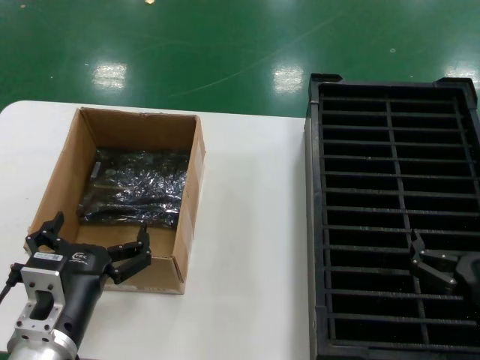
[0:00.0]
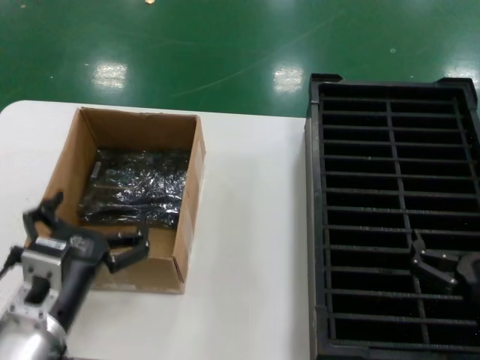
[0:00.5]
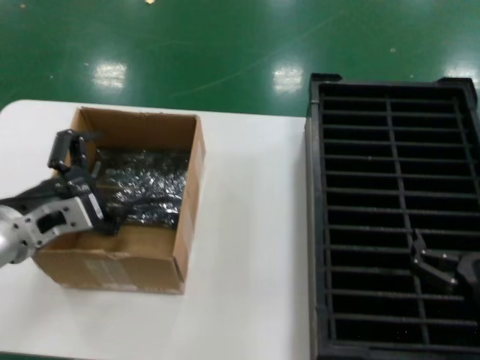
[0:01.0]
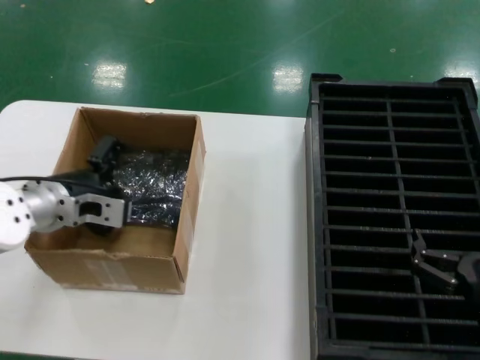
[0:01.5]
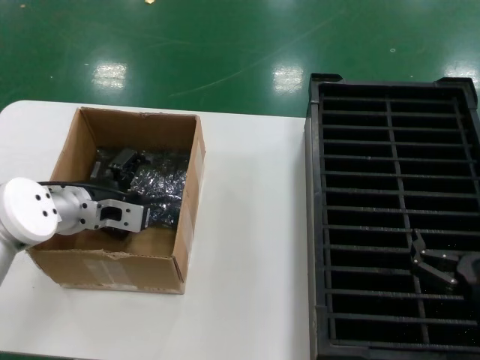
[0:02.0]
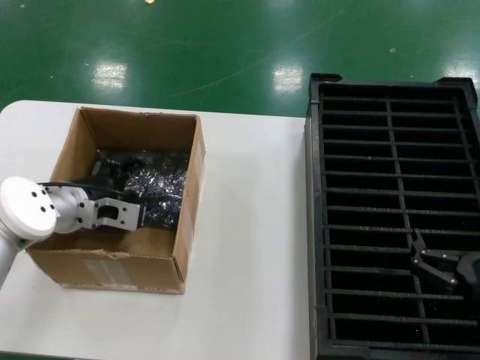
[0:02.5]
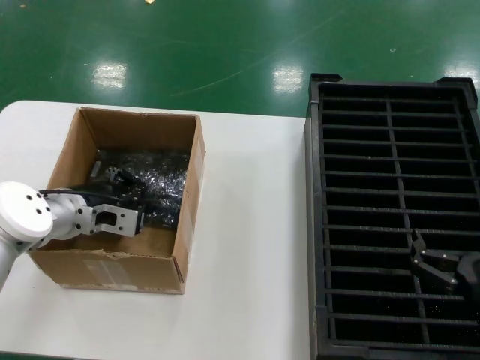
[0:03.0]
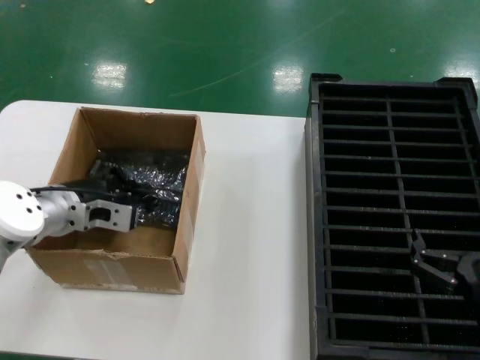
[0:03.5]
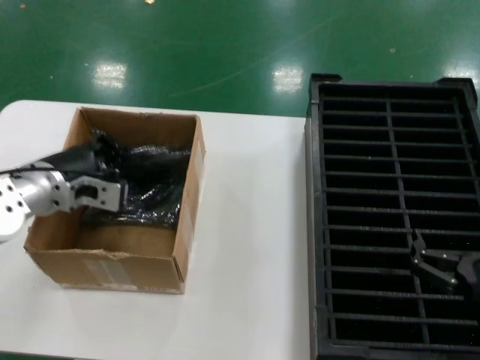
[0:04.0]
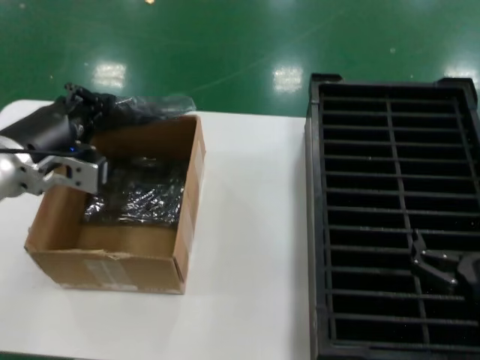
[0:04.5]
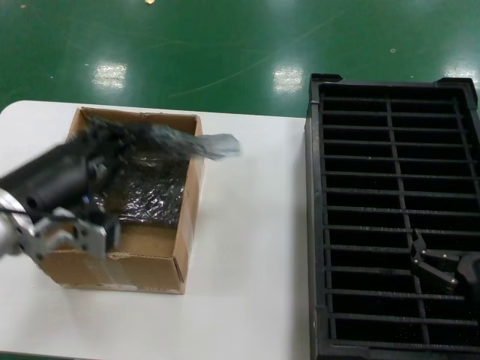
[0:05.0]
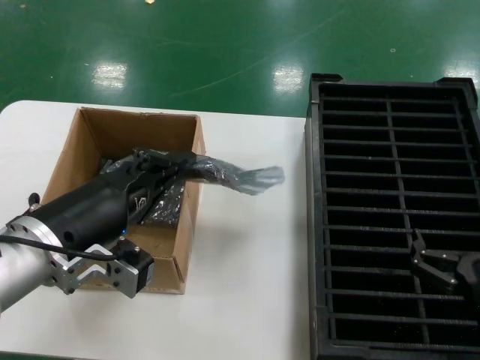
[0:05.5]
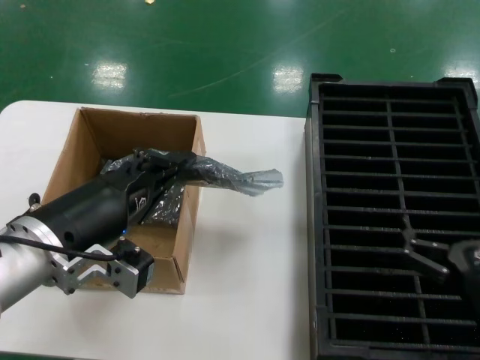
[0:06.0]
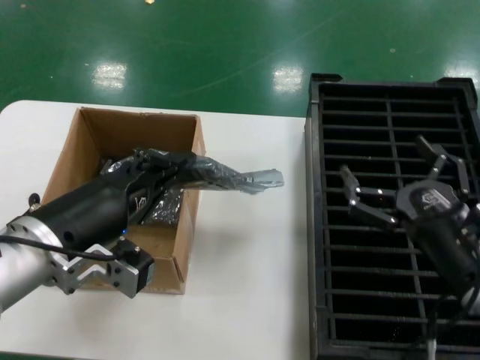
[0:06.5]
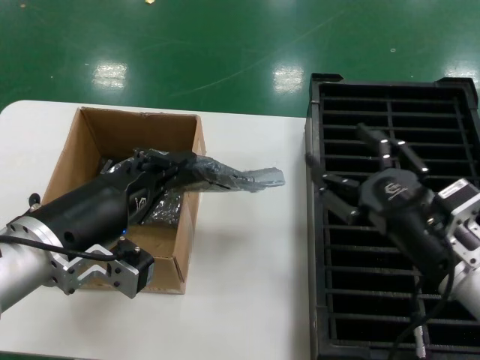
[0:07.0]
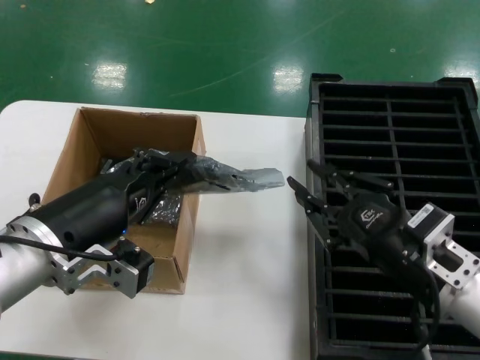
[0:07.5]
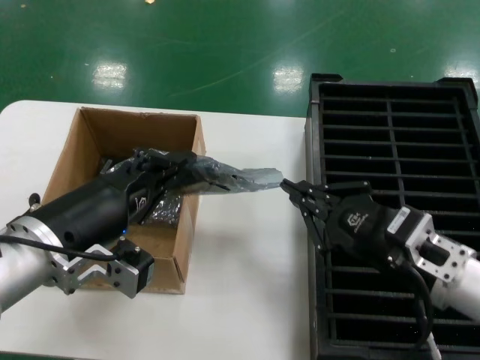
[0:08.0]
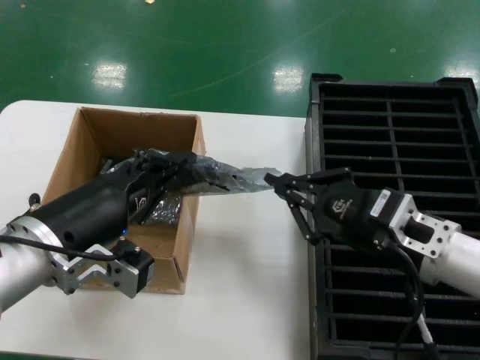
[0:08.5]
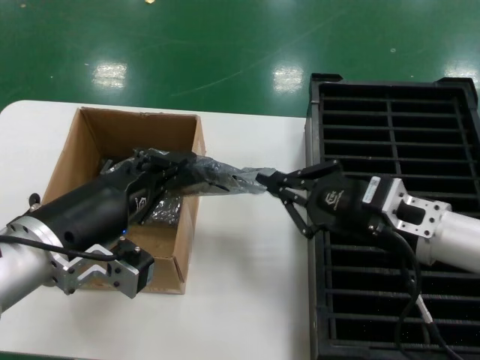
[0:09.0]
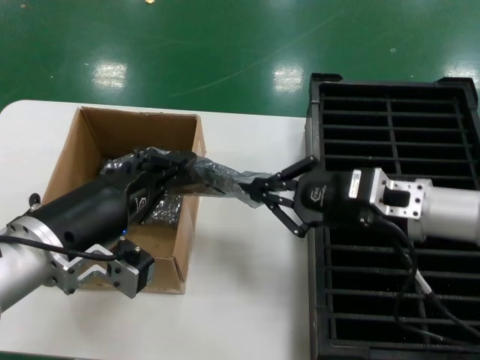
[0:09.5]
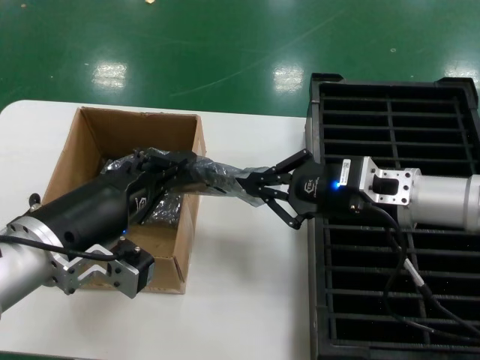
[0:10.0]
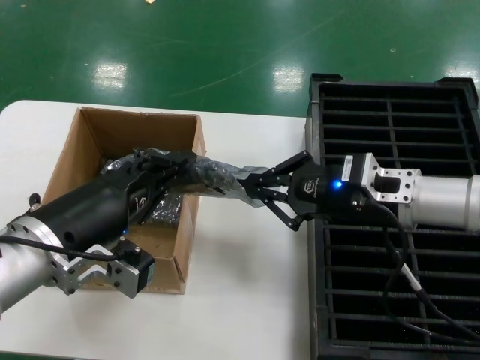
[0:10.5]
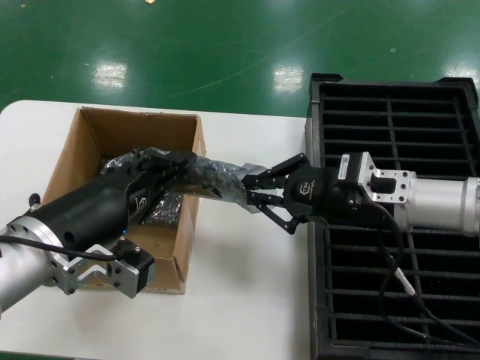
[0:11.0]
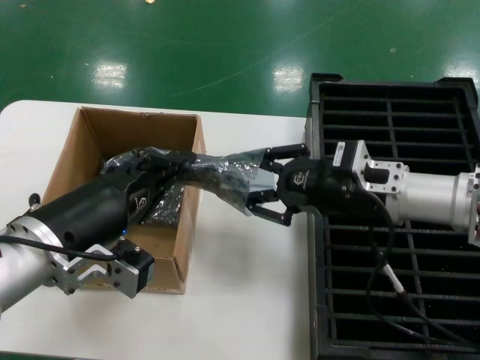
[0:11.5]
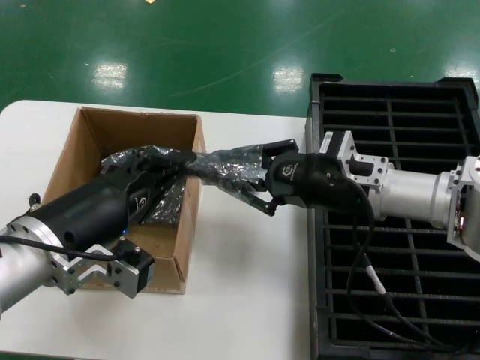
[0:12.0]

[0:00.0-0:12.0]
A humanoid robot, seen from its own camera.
Task of the whole recording: take out graphics card from box remove packaging put into black container.
Step, 0:00.0 to 0:03.0: Grasp the bag.
Step, 0:03.5 to 0:05.5: Lift the bag.
0:00.0 to 0:02.0: The left hand shifts roughly 20 cm forward and upward.
0:02.0 to 0:04.0: There are only small adjustments of the hands.
0:04.0 to 0:06.0: The left hand goes roughly 20 cm backward and to the right.
0:06.0 to 0:08.0: The right hand shifts some 10 cm upward and forward.
0:08.0 to 0:10.0: The right hand is displaced forward and upward by about 15 cm.
0:10.0 to 0:12.0: The hands stay close to where they were, moving slightly.

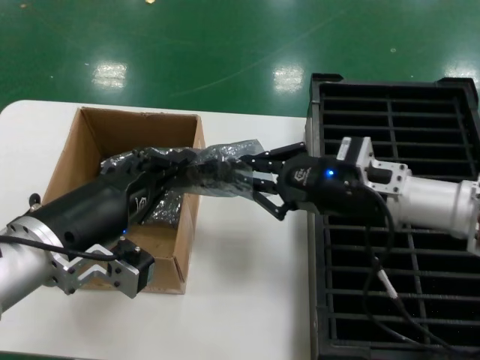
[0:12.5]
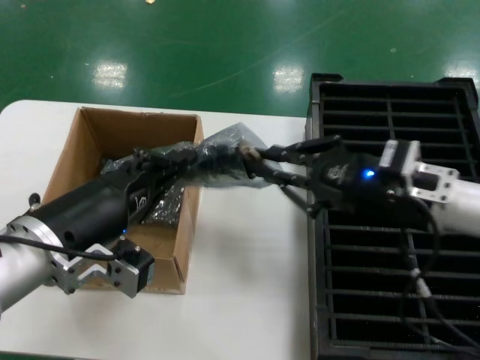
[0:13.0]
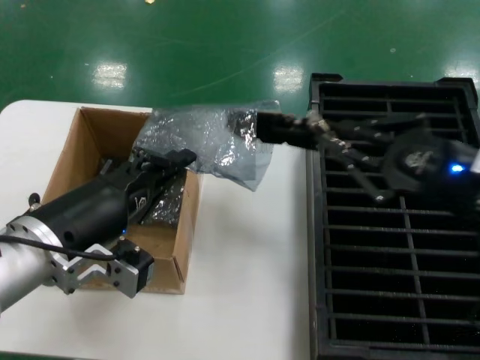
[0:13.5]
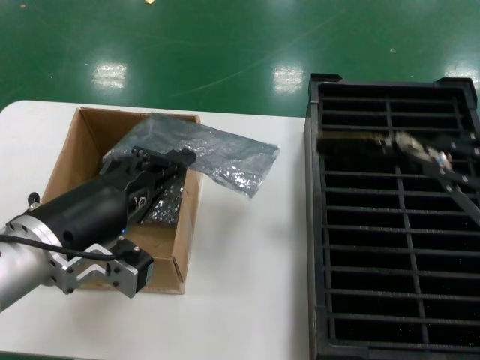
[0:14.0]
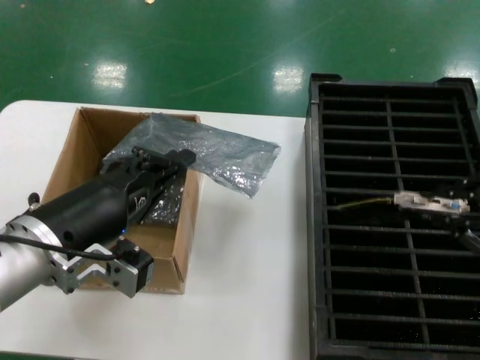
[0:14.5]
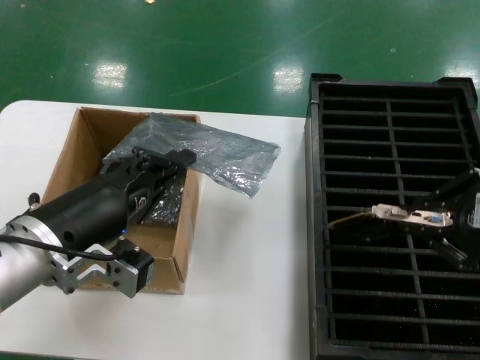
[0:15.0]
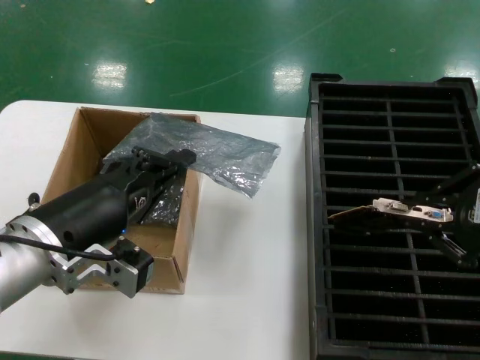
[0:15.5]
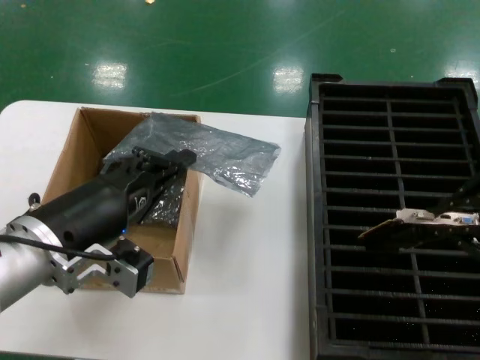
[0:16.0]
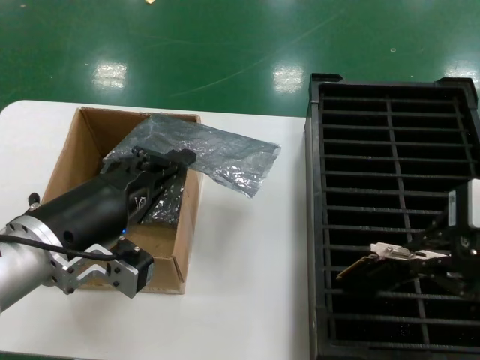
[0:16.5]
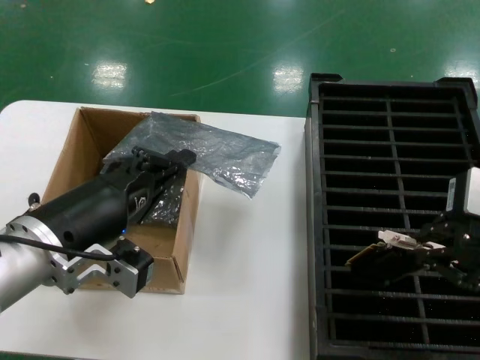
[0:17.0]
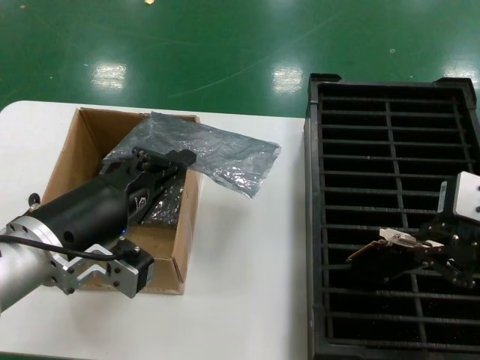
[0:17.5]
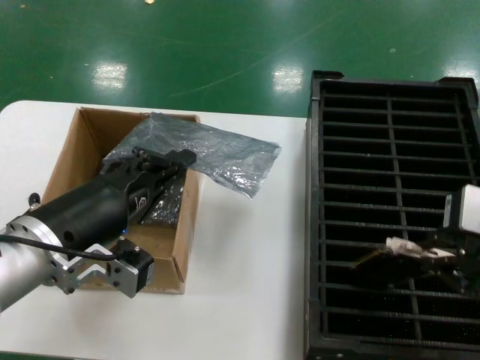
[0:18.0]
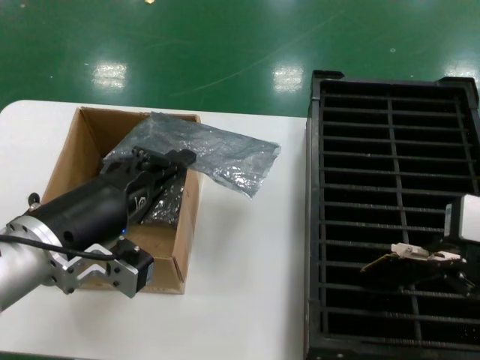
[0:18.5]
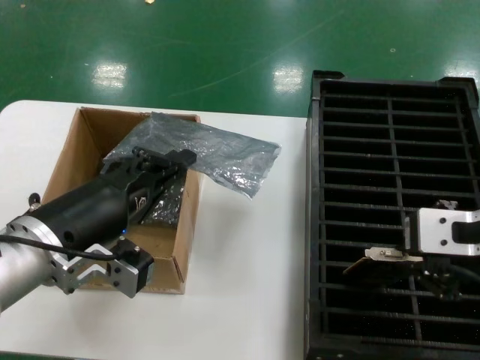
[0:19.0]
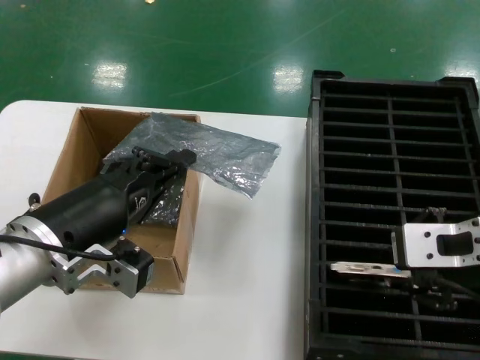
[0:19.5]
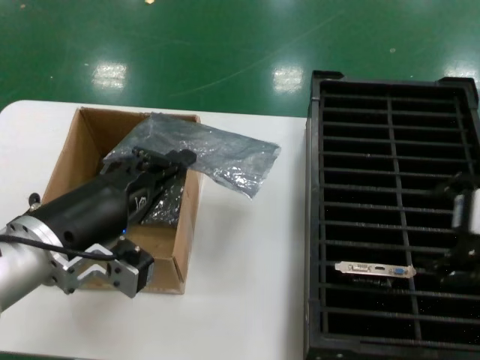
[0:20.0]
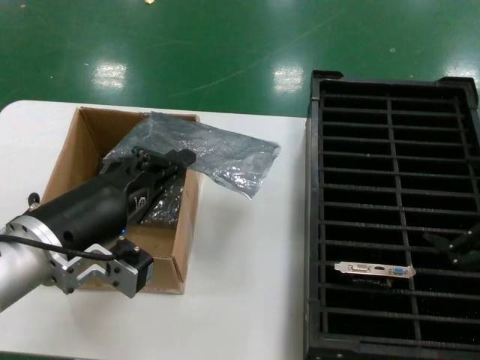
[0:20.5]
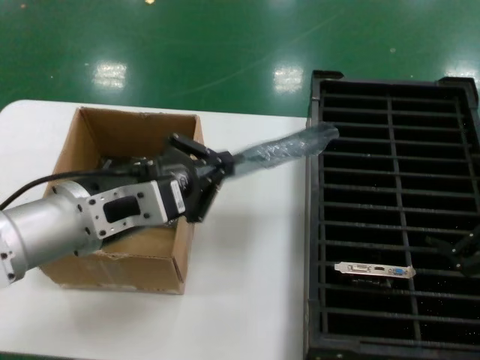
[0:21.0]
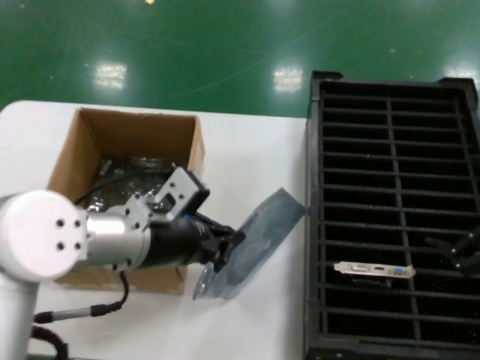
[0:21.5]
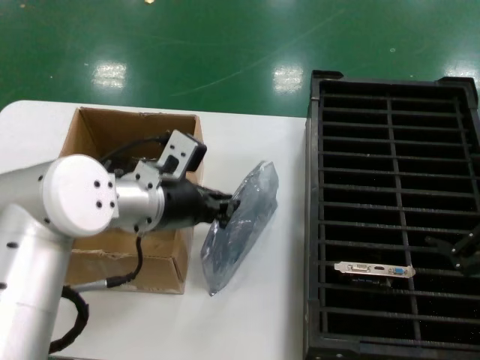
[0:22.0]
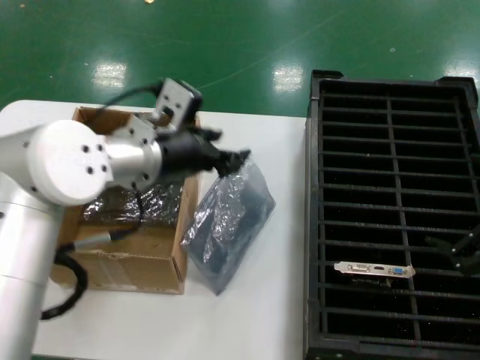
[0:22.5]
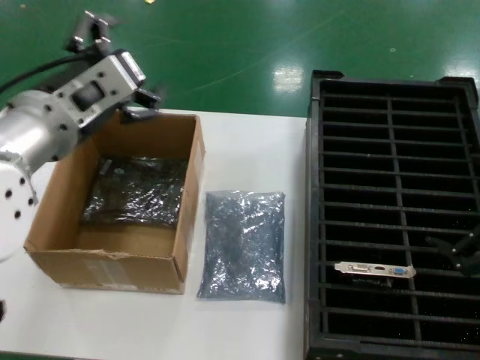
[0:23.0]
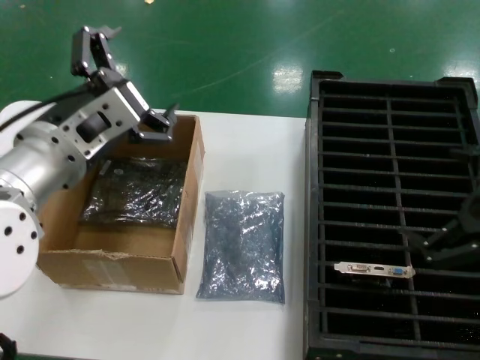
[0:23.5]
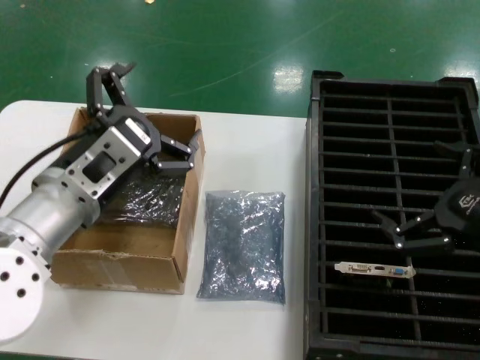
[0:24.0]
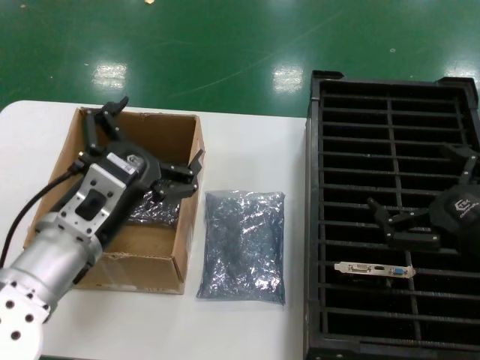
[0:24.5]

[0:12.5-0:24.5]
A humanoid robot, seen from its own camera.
Task of the whole recording: take out graphics card from box remove packaging put into black container.
Step, 0:14.0 to 0:19.5: Place the hard disk in the hard disk enclosure.
Step, 0:20.0 to 0:23.0: Place the down the bag.
0:12.5 to 0:14.5: The right hand travels backward, to the right and upward by some 25 cm.
0:14.5 to 0:16.5: The right hand goes approximately 10 cm to the left.
0:16.5 to 0:18.5: The hands make only small movements.
0:18.5 to 0:20.5: The right hand heads to the right, covering approximately 10 cm.
0:20.5 to 0:22.5: The left hand shifts roughly 15 cm forward and to the right.
0:22.5 to 0:24.5: The left hand travels backward and downward by roughly 15 cm; the right hand shifts roughly 10 cm downward.

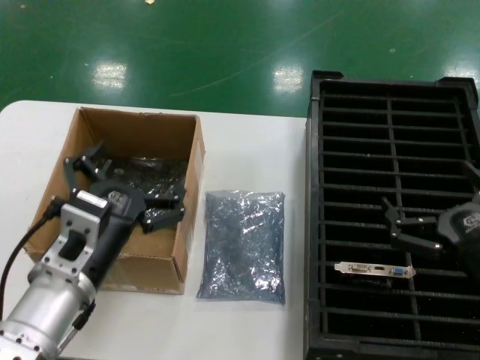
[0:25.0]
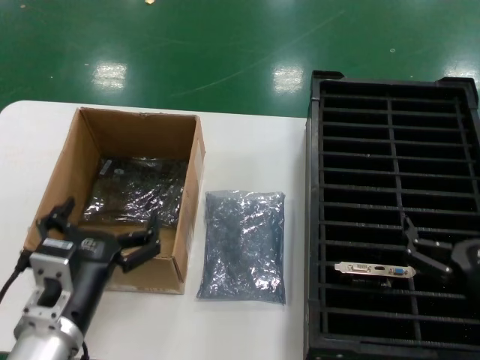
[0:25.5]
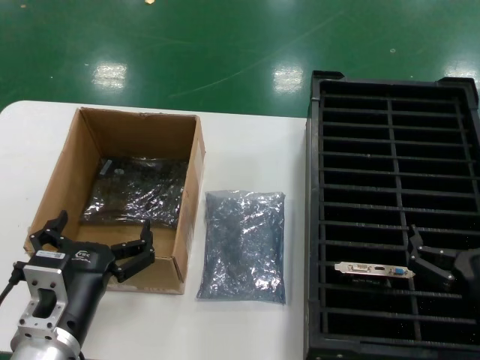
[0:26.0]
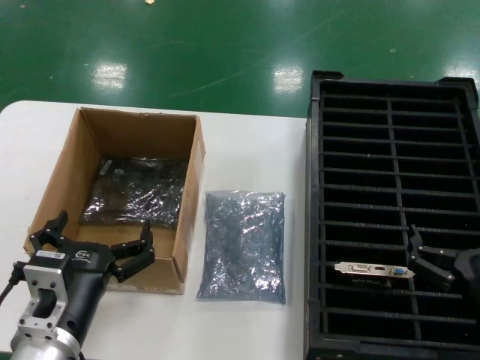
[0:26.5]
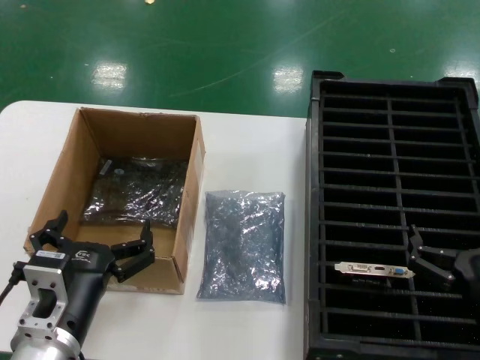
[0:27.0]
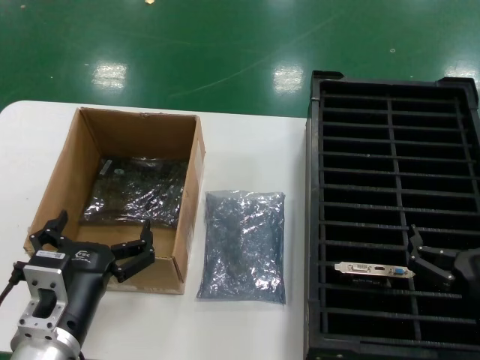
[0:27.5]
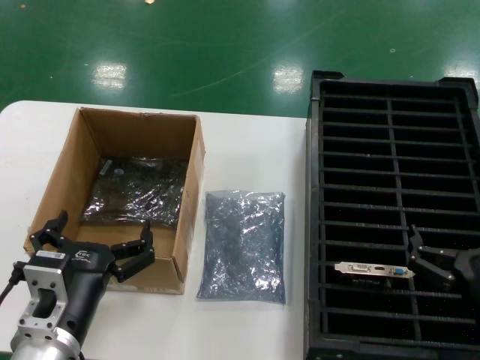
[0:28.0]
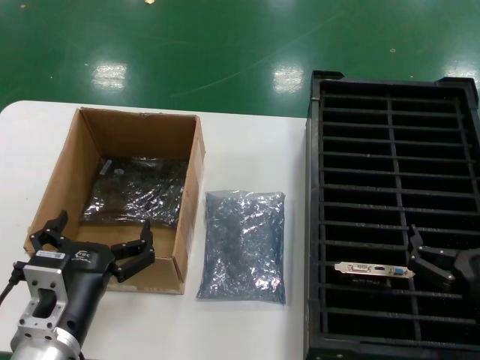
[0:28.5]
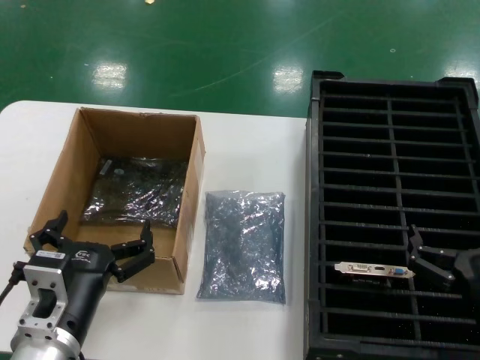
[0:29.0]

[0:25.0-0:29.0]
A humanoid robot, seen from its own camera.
Task of the whole recording: take out graphics card from box remove packaging put into black container.
0:25.0 to 0:27.0: Both hands move downward, approximately 5 cm.
0:27.0 to 0:29.0: The two hands keep their place.
